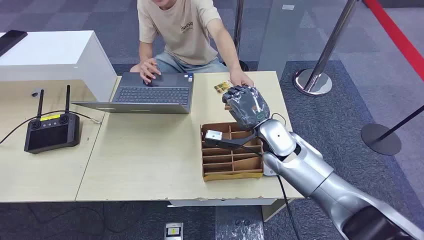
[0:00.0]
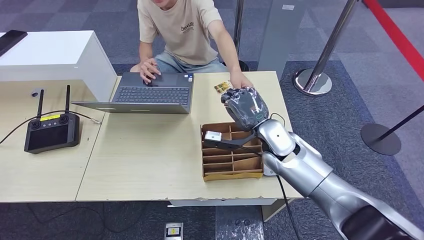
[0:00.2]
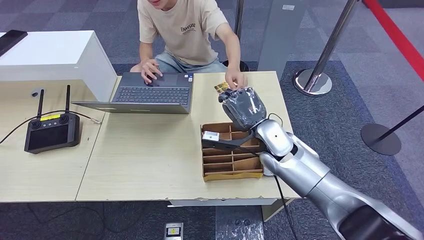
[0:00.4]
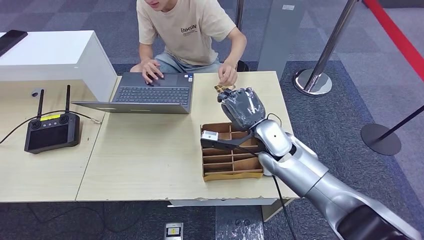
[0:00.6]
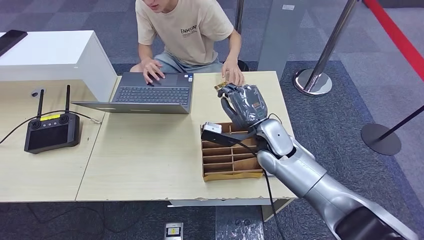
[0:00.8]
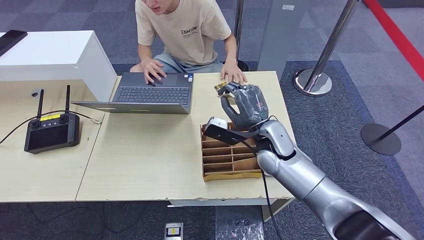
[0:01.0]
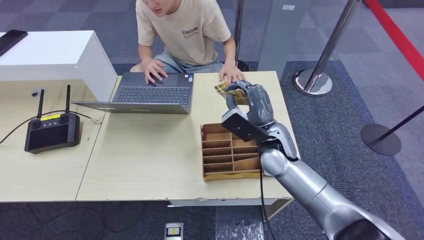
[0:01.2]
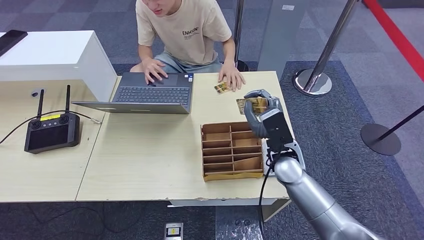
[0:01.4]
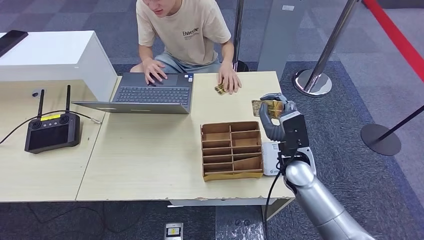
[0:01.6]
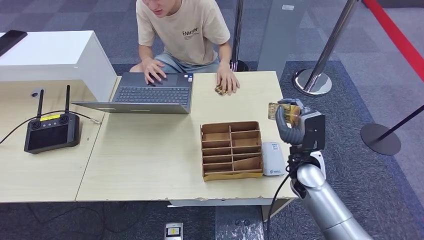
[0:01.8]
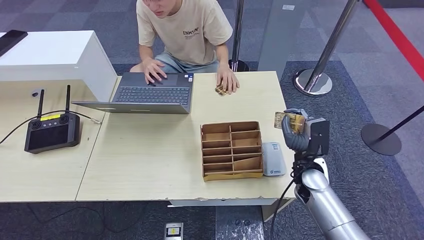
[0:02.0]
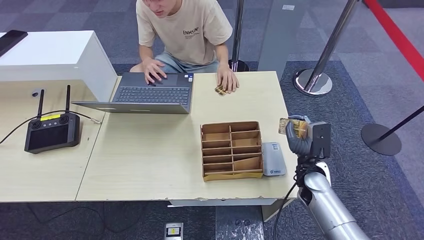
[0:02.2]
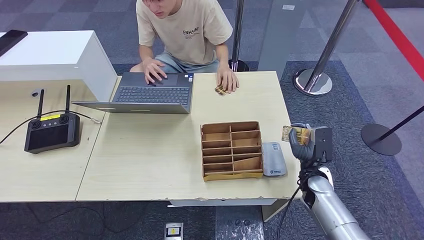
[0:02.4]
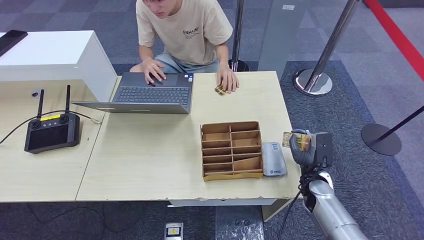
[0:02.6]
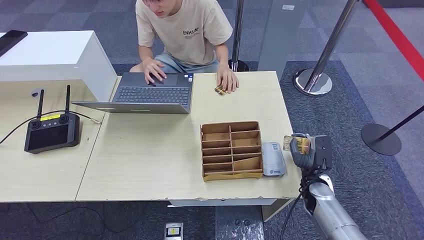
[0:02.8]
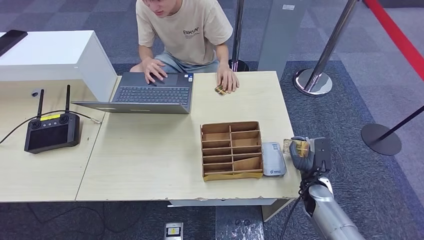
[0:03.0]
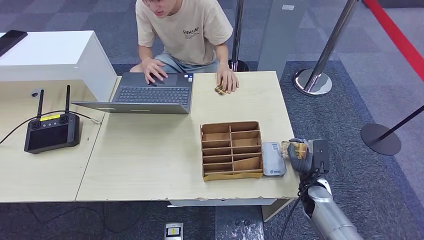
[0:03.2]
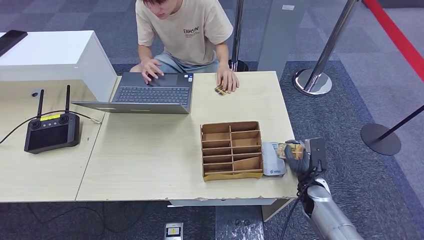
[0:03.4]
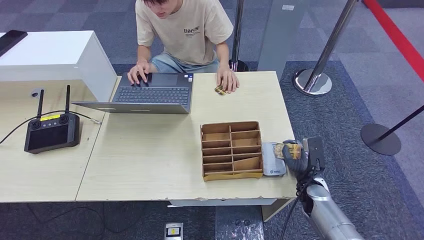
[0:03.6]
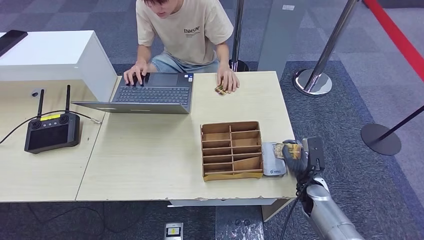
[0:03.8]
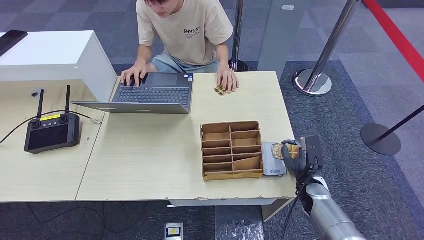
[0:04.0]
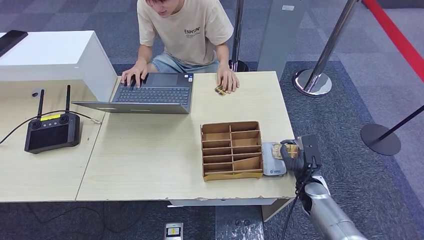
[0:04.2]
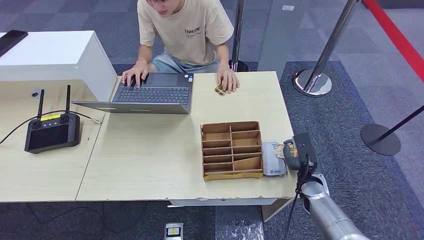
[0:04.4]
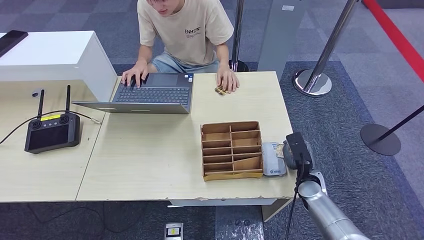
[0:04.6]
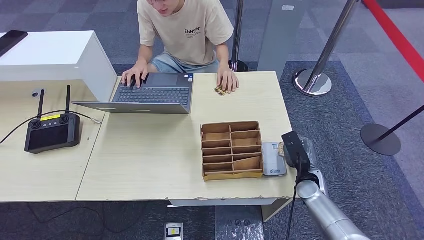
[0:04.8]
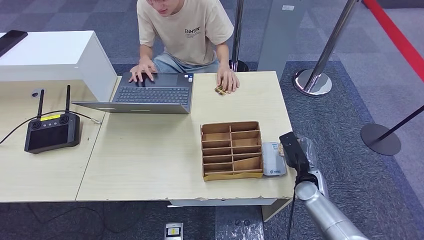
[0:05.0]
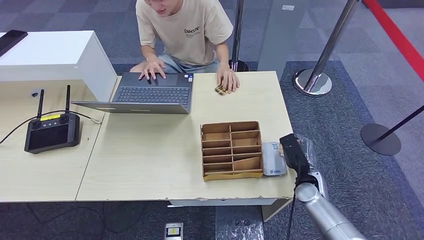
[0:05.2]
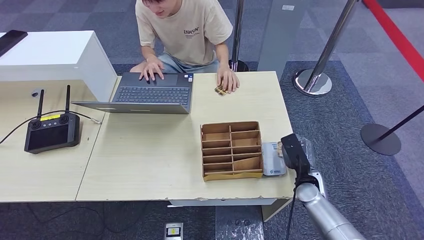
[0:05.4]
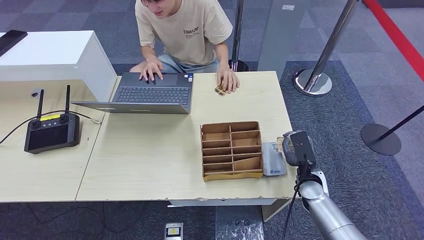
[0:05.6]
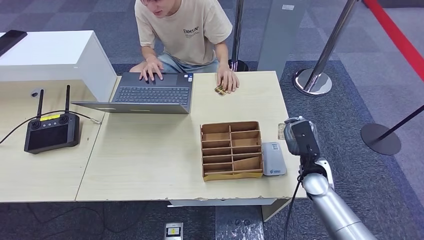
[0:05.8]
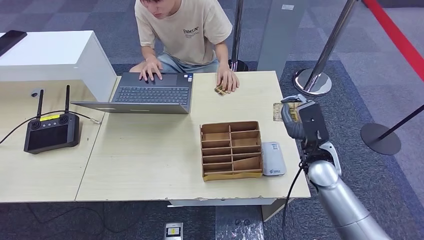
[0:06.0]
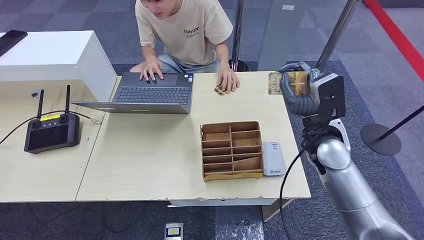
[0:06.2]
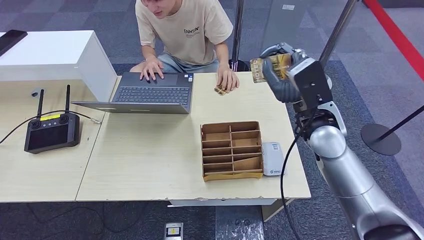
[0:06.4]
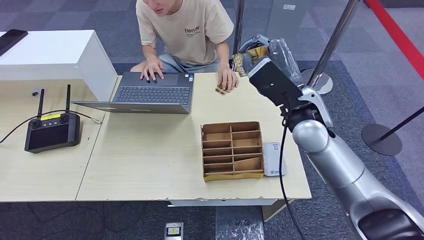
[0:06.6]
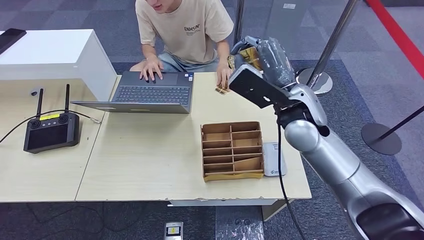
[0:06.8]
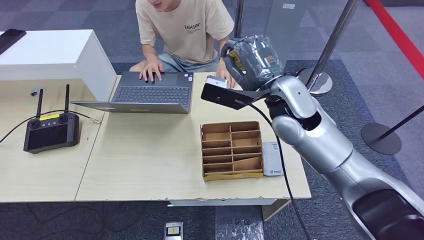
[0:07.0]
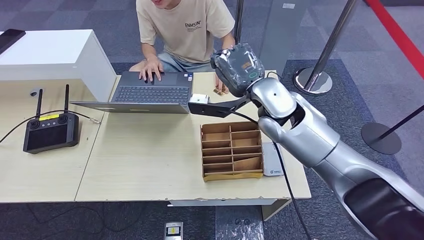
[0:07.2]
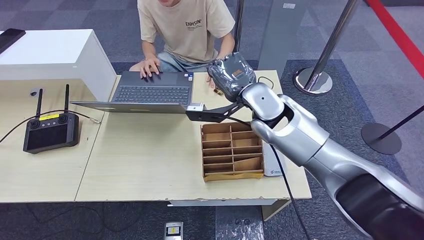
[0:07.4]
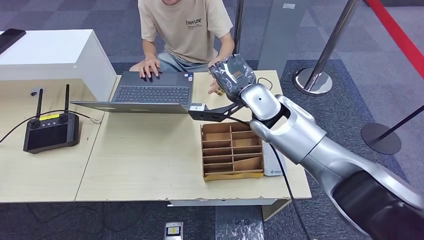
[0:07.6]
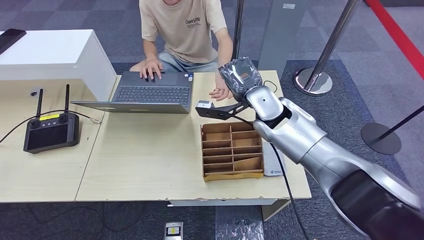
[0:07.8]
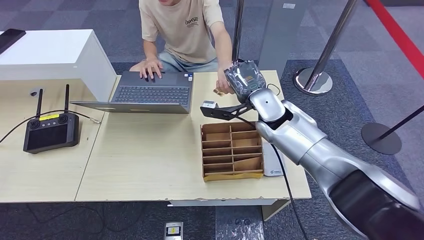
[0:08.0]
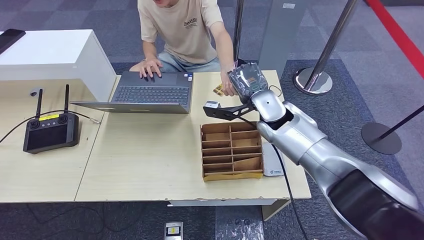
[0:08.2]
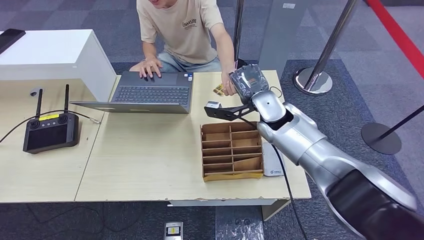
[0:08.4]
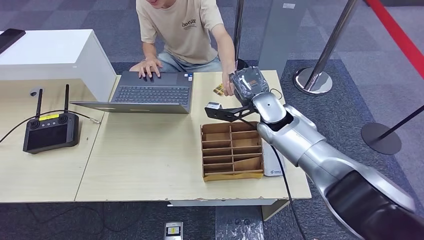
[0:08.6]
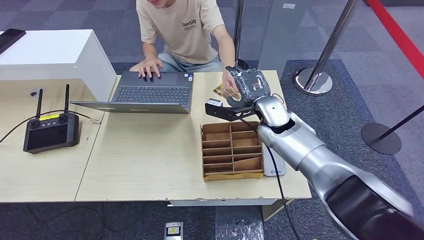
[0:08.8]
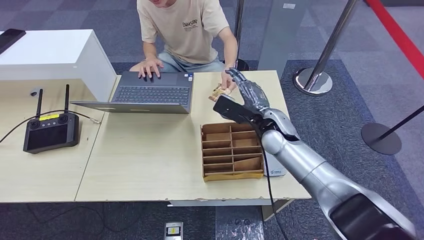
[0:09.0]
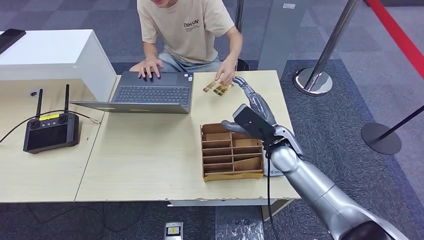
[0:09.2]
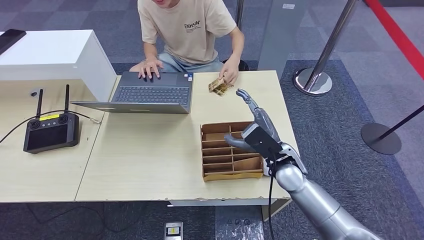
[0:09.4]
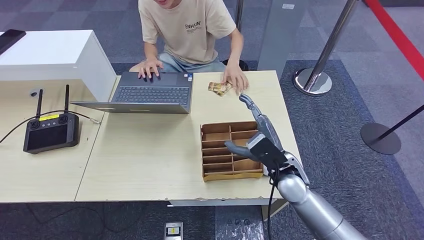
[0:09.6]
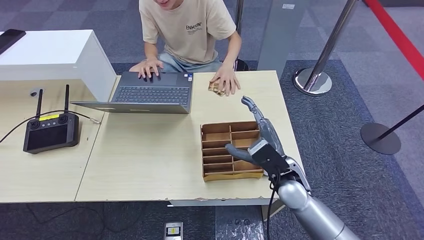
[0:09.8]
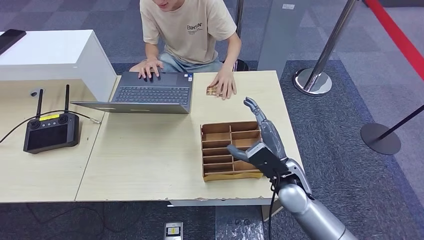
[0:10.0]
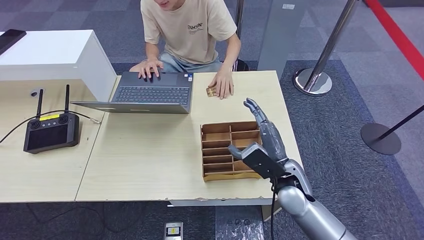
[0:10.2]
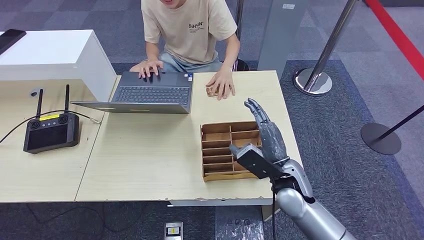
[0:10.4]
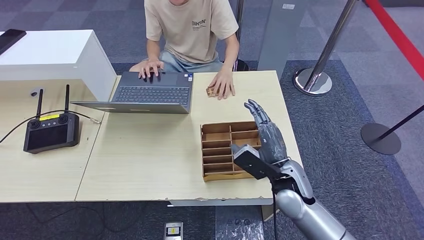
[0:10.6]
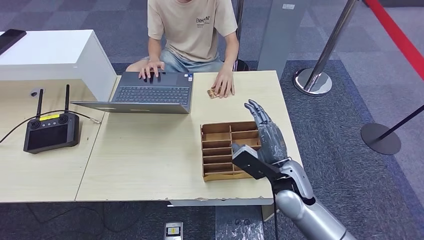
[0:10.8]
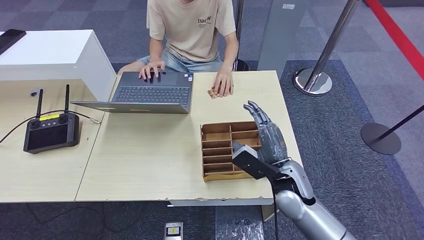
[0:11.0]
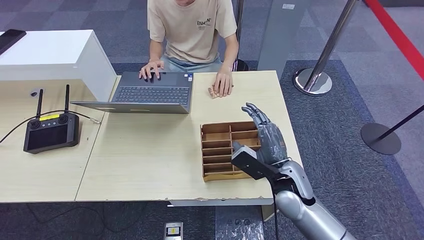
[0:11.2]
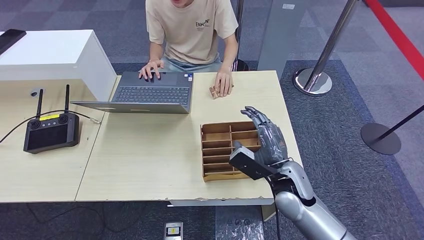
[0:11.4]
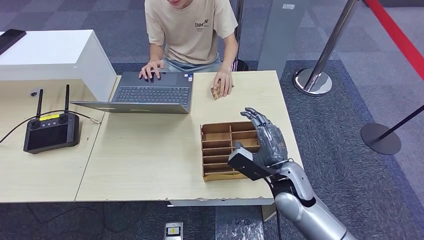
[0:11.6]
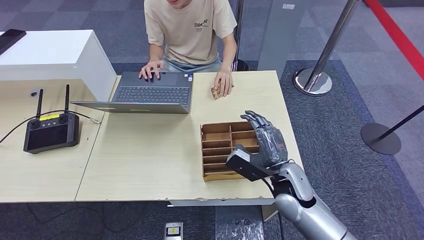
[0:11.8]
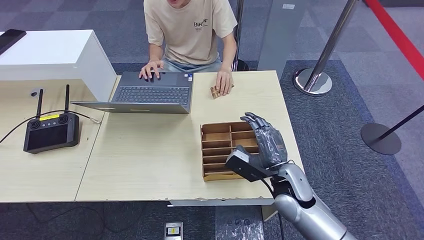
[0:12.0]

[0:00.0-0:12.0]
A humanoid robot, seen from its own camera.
Step, 0.0 to 1.2 s: Take the ID card from the person's hand.
Step, 1.4 to 4.4 s: Place the ID card on the card reader.
Step, 4.8 to 9.6 s: Hand the ID card to the person.
1.6 to 3.0 s: The right hand is displaced downward and to the right by some 15 cm.
3.0 to 4.4 s: There are only small adjustments of the hands.
4.4 to 6.0 s: The right hand travels upward by some 15 cm.
6.0 to 7.6 s: The right hand is displaced to the left, upward and forward by some 20 cm.
7.6 to 9.0 s: The right hand is displaced downward by about 10 cm.
9.0 to 10.4 s: The right hand moves backward and downward, approximately 15 cm.
10.4 to 12.0 s: There are only small adjustments of the hands.

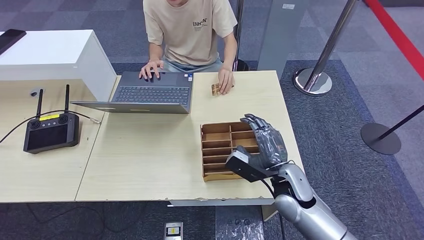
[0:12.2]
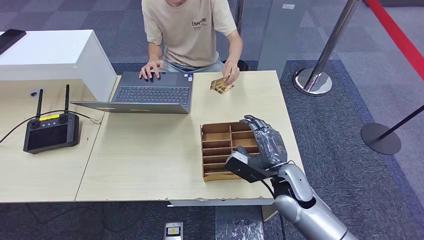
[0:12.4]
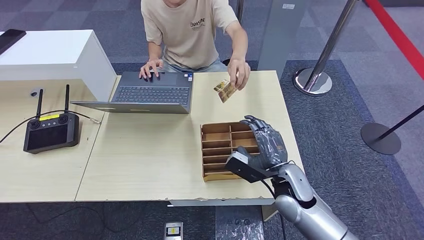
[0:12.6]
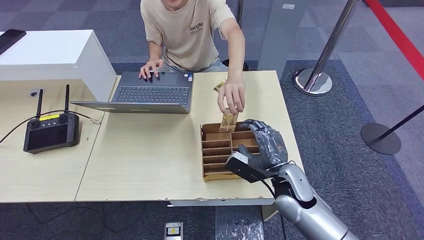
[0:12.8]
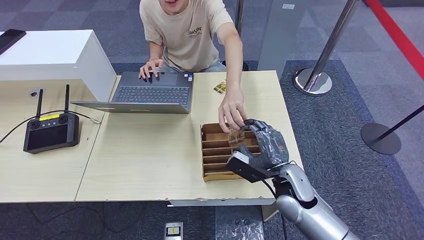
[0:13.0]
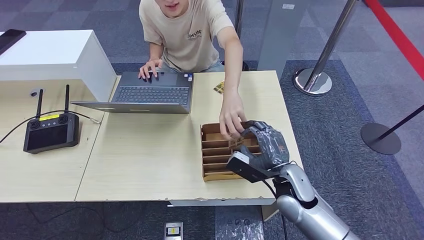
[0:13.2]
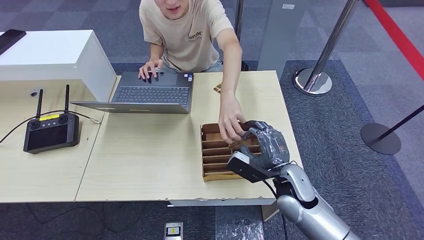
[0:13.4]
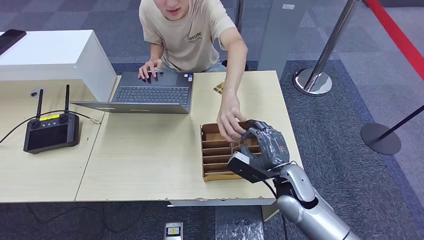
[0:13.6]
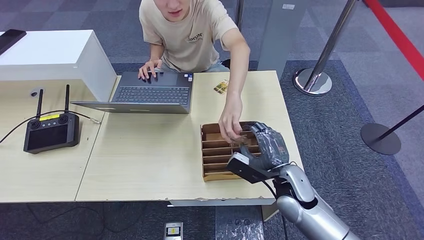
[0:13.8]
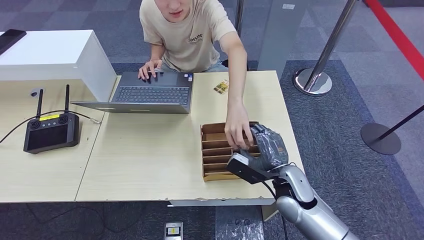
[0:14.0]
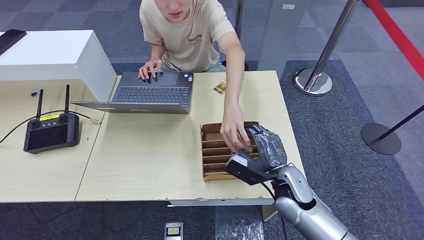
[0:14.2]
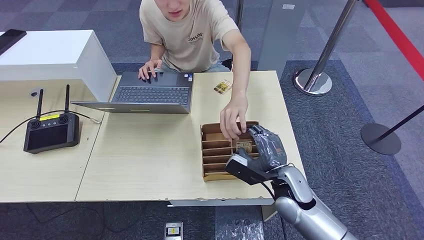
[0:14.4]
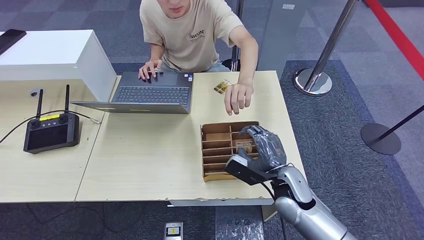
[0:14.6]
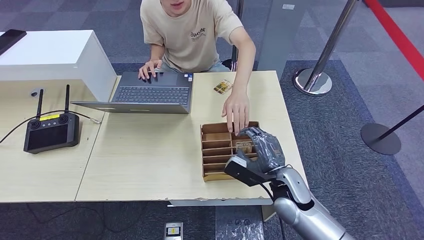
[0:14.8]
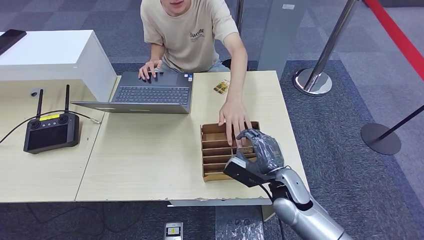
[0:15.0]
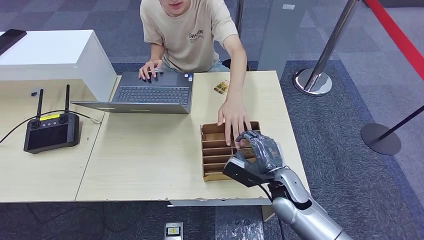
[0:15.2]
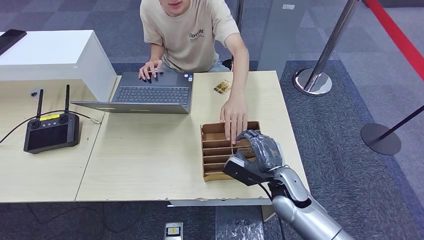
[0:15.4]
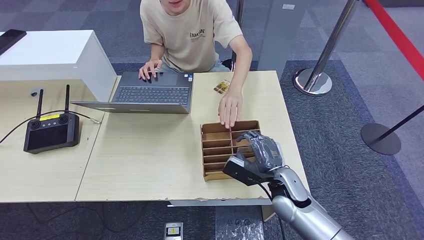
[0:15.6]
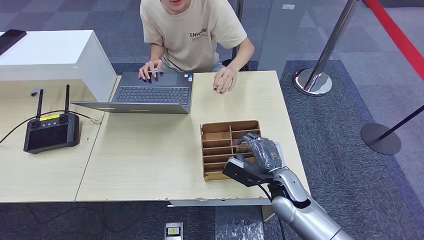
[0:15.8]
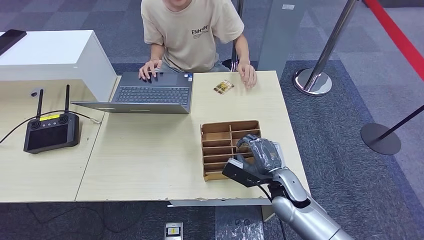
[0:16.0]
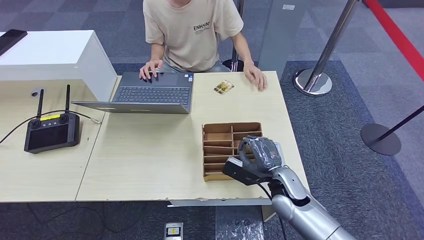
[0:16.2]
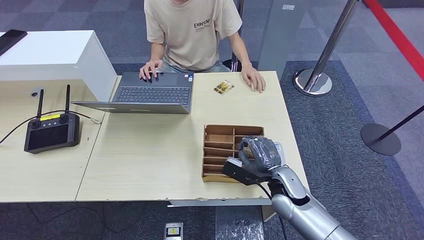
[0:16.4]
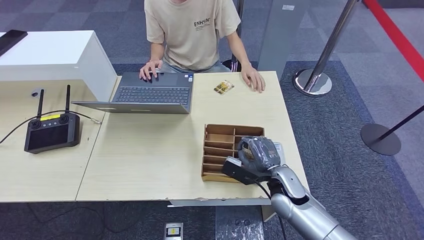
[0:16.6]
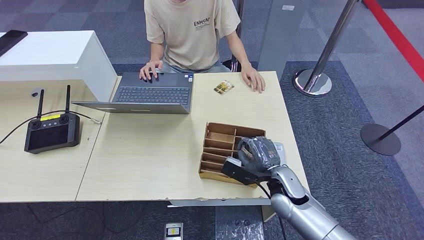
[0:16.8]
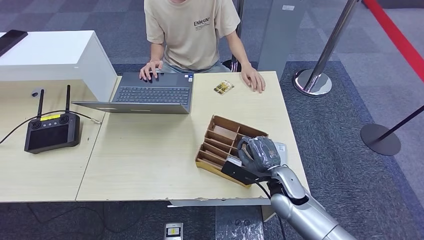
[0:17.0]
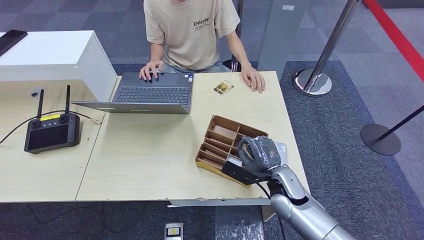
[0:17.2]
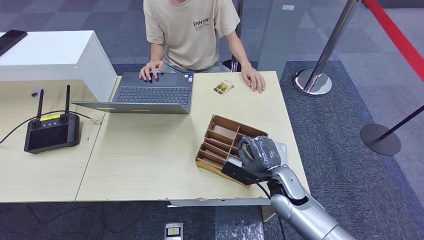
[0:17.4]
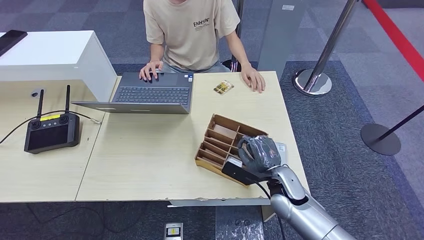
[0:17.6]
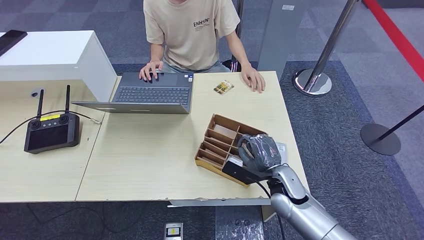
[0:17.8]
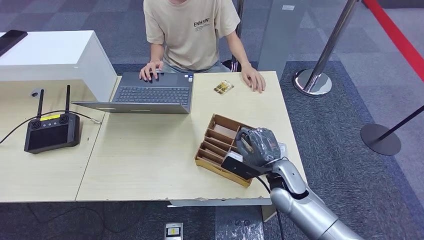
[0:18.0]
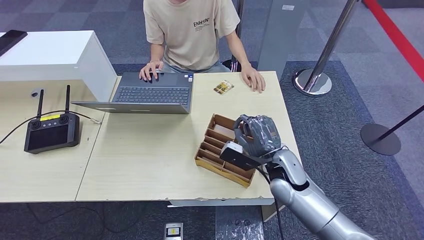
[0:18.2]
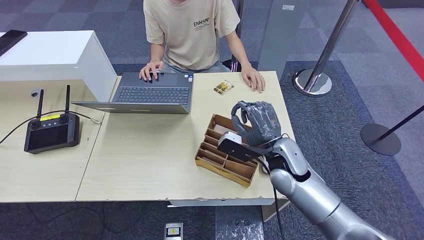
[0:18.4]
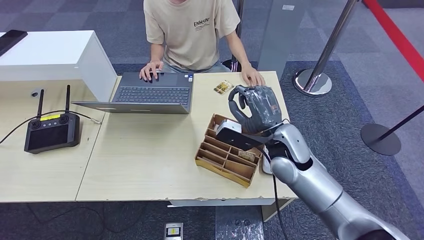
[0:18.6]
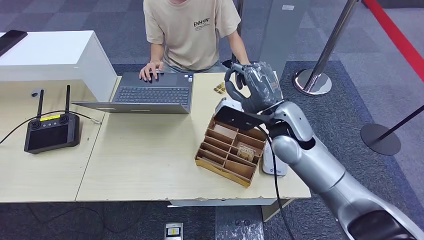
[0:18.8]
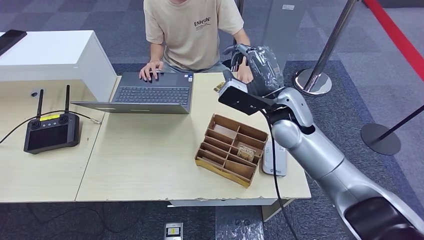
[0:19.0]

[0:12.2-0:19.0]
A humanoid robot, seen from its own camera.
12.2 to 13.6 s: The two hands keep their place.
13.6 to 16.2 s: There are only small adjustments of the hands.
16.2 to 17.6 s: Both hands stay put.
17.6 to 19.0 s: The right hand moves upward and forward, approximately 20 cm.
